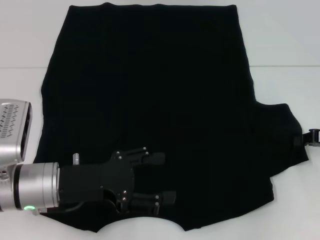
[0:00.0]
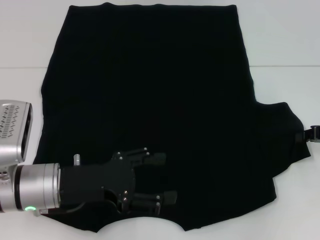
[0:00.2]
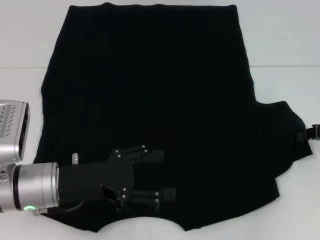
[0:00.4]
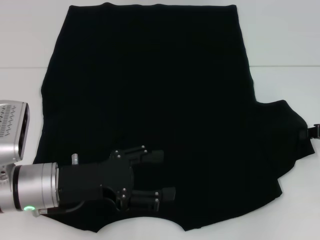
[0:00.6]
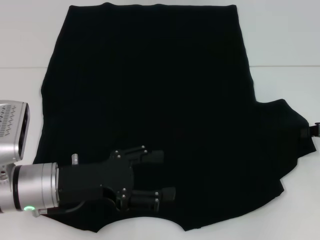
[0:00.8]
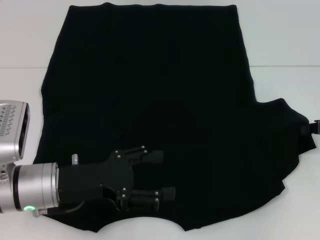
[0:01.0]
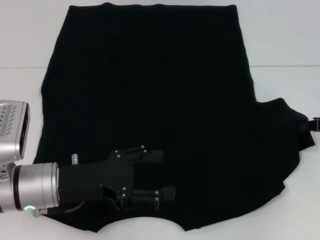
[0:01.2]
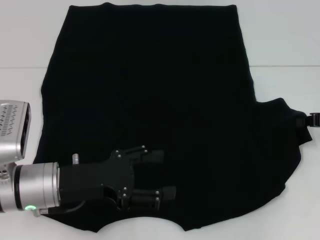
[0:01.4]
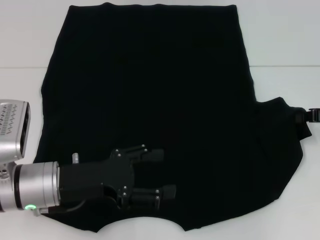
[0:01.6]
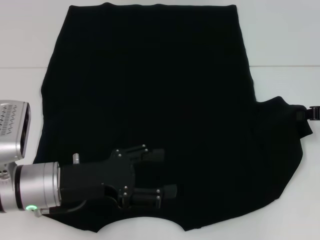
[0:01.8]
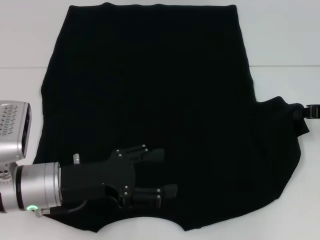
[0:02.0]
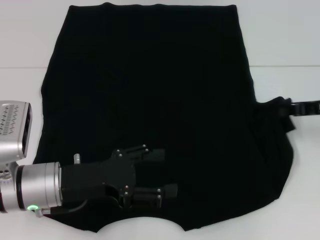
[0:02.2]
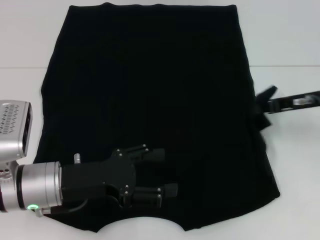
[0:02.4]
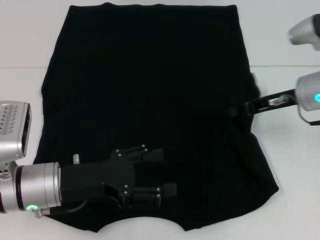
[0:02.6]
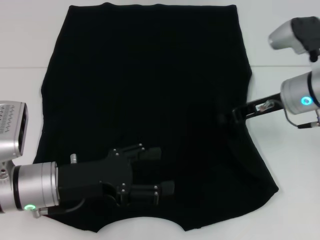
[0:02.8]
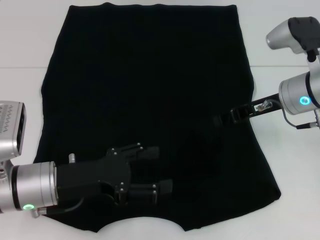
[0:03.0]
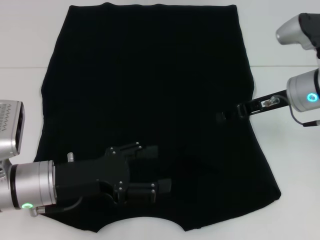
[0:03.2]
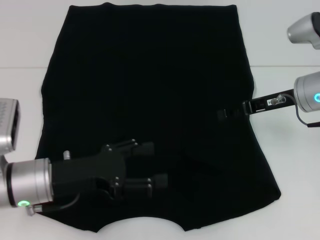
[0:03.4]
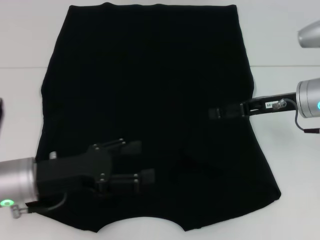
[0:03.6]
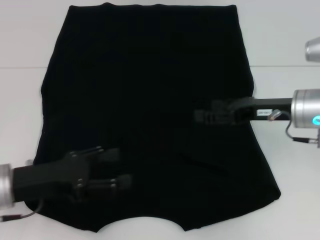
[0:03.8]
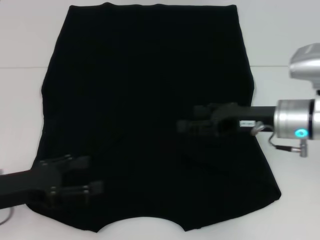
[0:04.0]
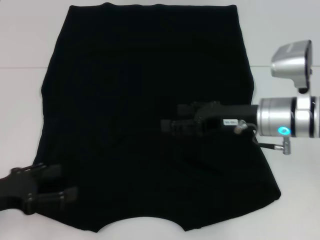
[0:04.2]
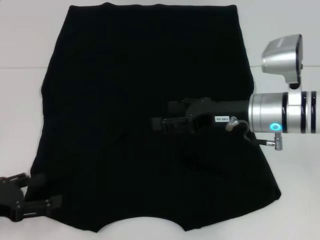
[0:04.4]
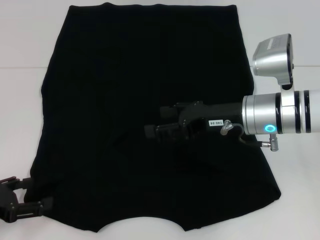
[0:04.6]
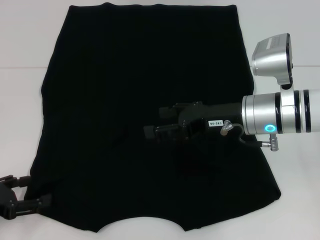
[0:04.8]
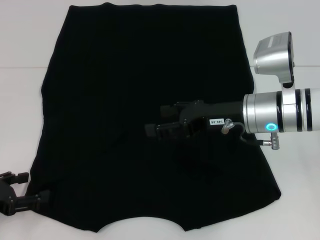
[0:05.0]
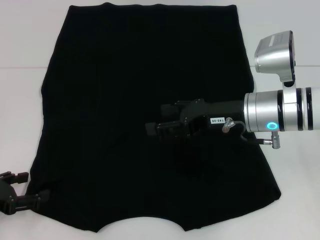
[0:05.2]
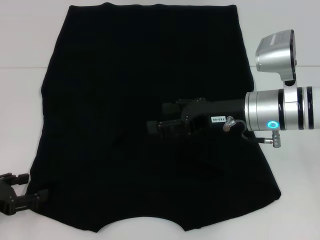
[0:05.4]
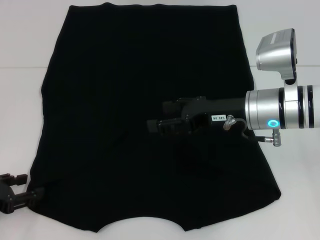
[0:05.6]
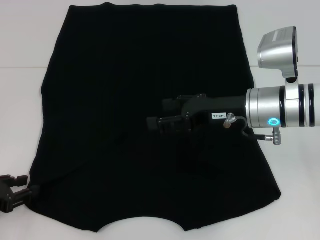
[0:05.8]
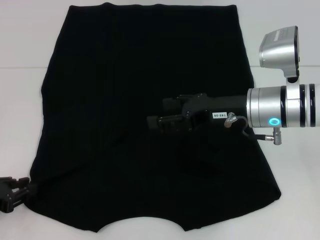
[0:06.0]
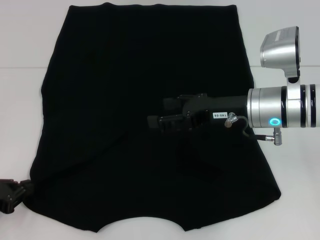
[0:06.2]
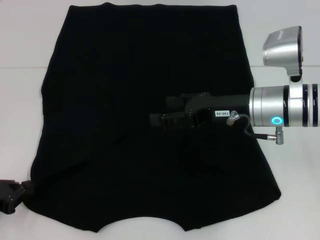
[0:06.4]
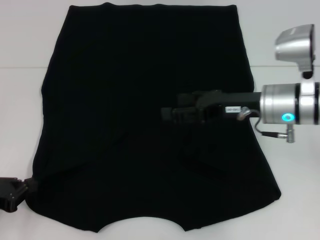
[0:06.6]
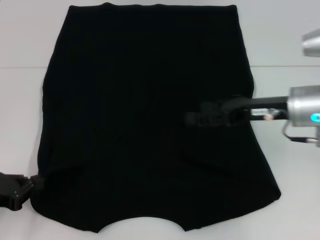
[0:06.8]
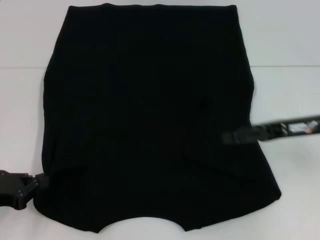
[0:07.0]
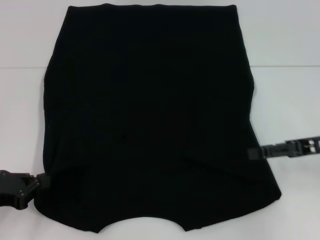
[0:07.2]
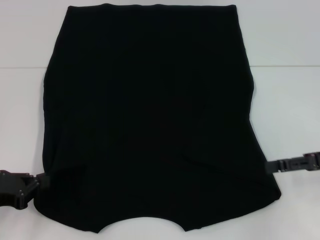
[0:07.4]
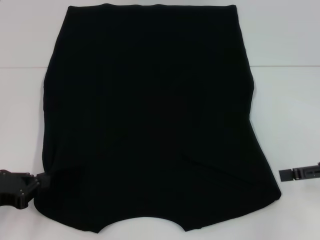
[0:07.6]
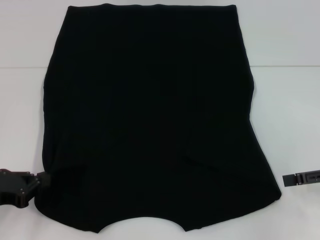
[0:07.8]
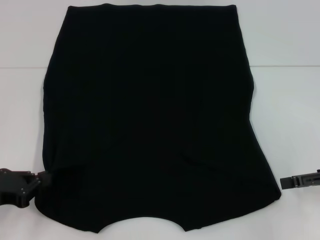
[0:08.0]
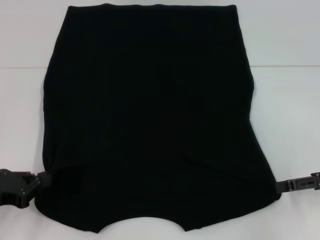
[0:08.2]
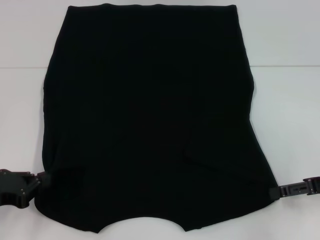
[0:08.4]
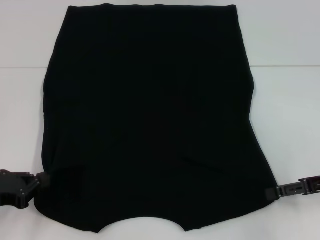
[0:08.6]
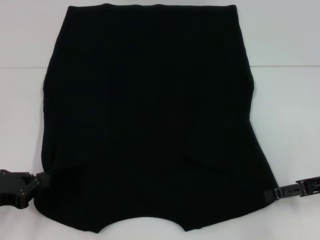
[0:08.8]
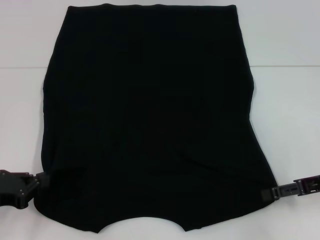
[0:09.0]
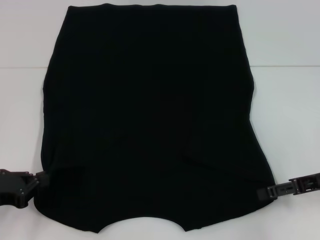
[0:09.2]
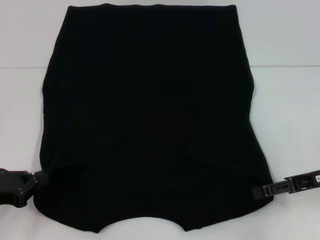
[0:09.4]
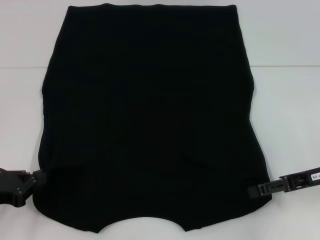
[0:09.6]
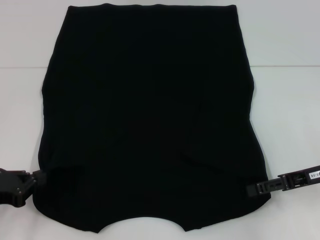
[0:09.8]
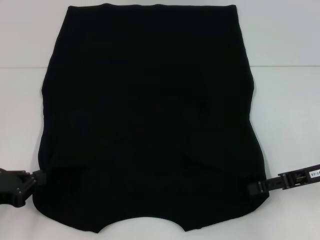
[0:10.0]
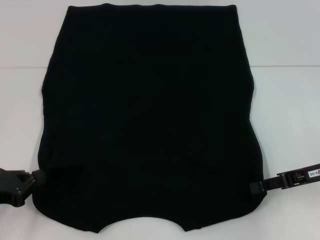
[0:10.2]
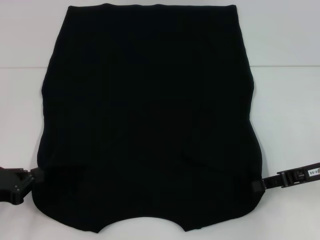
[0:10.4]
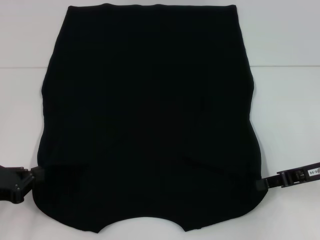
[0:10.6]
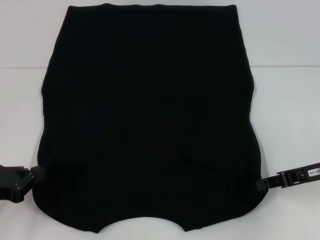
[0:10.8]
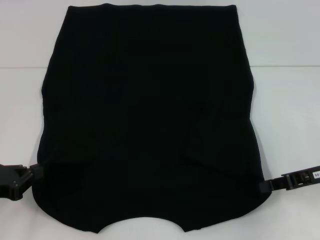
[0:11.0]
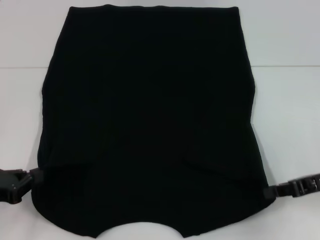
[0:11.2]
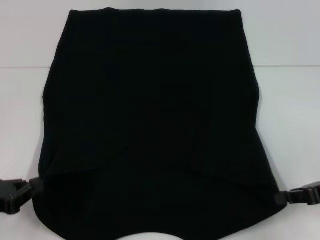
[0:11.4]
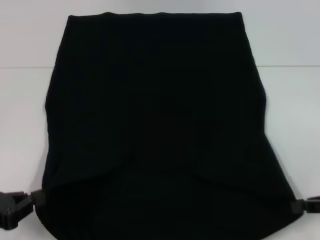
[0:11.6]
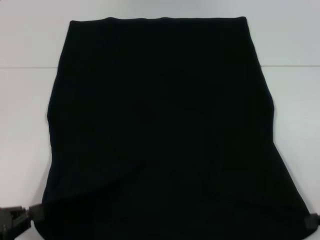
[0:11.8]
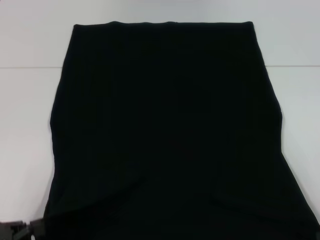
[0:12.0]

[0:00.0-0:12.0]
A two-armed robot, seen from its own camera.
Step, 0:00.0 to 0:03.6: Fold the bottom right sleeve with your right hand.
Step, 0:03.8 to 0:07.0: Grab the bottom left corner with your left hand.
Step, 0:07.2 to 0:10.2: Grab the bottom right corner with your right hand.
0:00.0 to 0:01.6: The grippers stay close to where they were, moving slightly.
0:01.6 to 0:03.0: The right gripper travels to the left by about 15 cm.
0:03.0 to 0:04.4: The right gripper shifts by approximately 5 cm, and opens its fingers. Meanwhile the left gripper shifts approximately 15 cm to the left.
0:04.4 to 0:06.0: The left gripper closes its fingers.
0:06.0 to 0:07.6: The right gripper moves to the right, about 20 cm, while the left gripper closes up.
0:07.6 to 0:09.0: The grippers move only a little.
0:09.0 to 0:10.4: The right gripper closes up.
0:10.4 to 0:12.0: The right gripper shifts about 15 cm backward and to the right, and closes its fingers. Meanwhile the left gripper heads backward, covering approximately 5 cm.

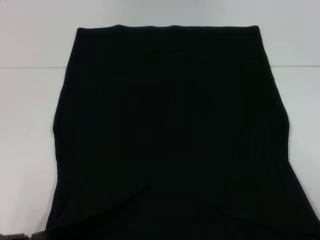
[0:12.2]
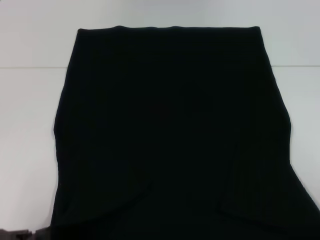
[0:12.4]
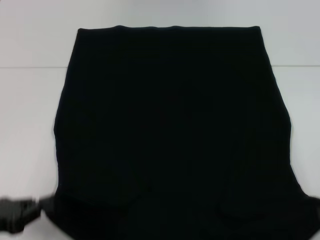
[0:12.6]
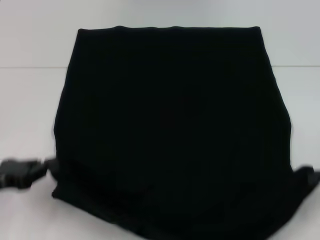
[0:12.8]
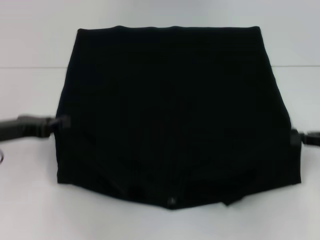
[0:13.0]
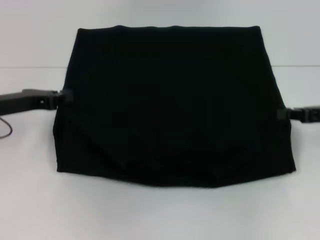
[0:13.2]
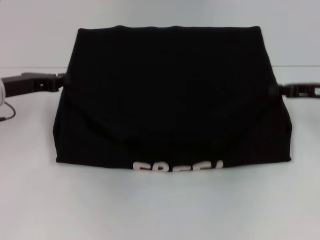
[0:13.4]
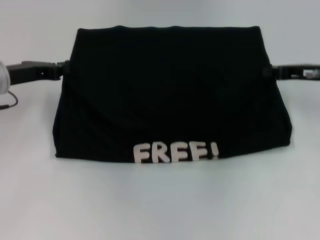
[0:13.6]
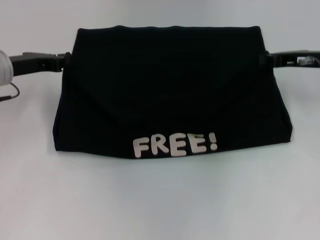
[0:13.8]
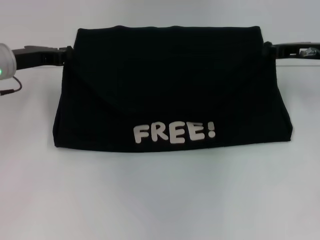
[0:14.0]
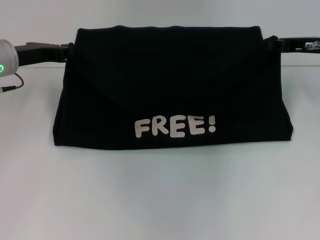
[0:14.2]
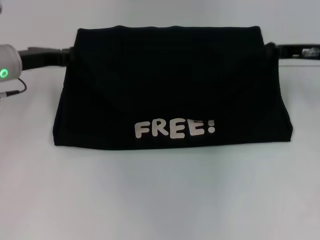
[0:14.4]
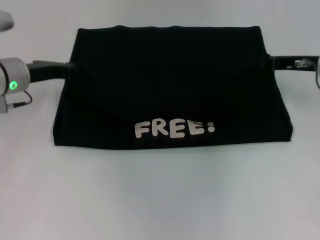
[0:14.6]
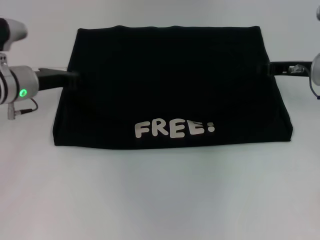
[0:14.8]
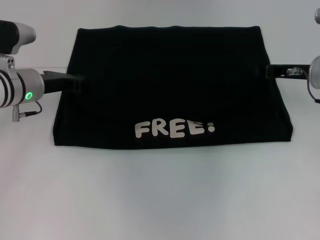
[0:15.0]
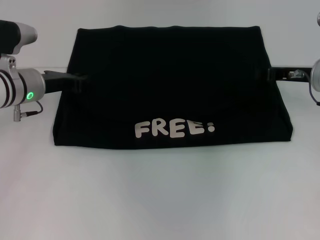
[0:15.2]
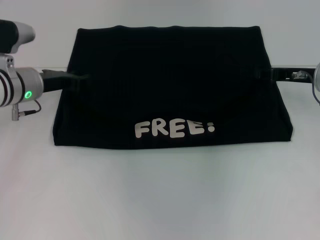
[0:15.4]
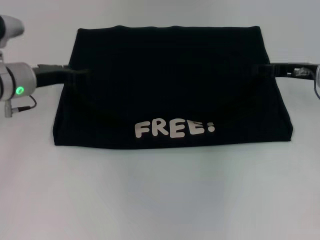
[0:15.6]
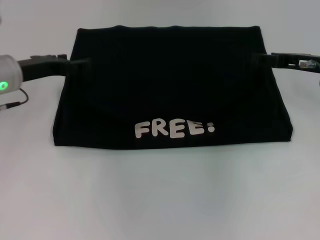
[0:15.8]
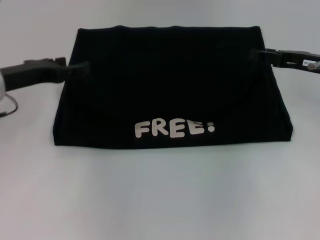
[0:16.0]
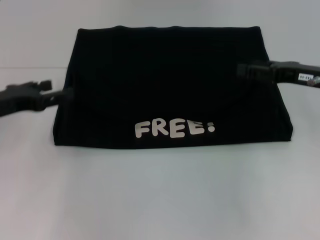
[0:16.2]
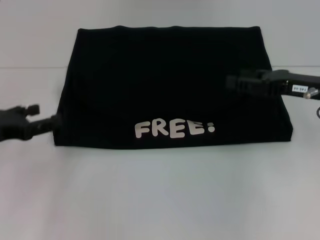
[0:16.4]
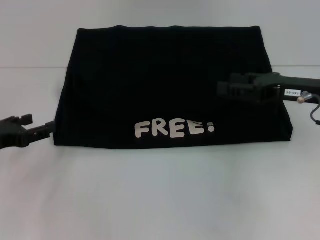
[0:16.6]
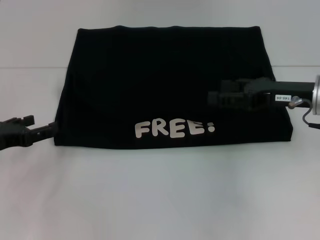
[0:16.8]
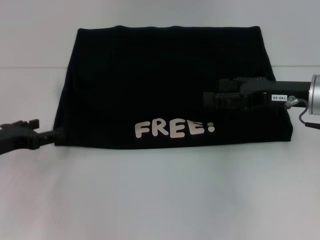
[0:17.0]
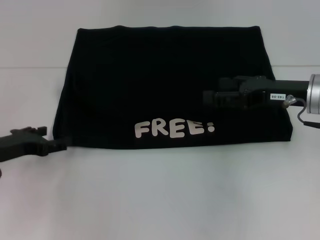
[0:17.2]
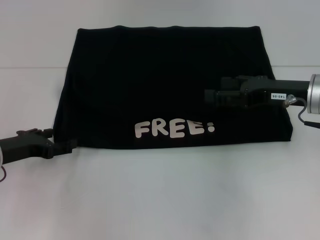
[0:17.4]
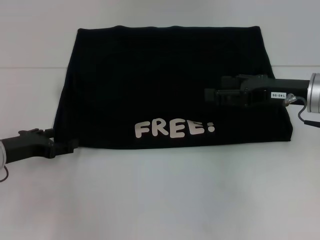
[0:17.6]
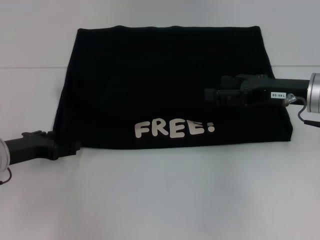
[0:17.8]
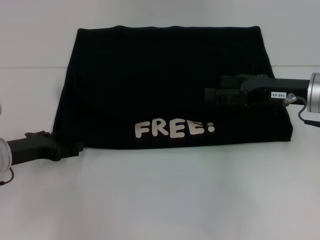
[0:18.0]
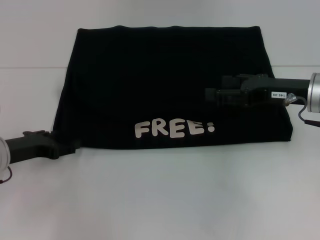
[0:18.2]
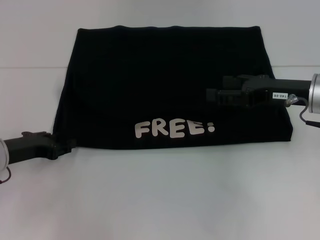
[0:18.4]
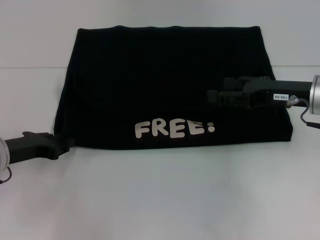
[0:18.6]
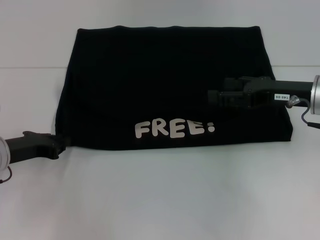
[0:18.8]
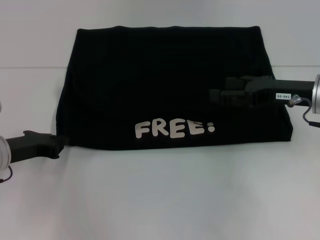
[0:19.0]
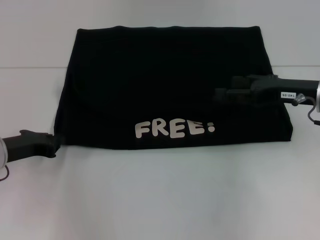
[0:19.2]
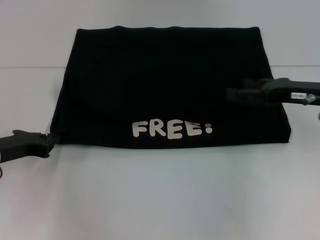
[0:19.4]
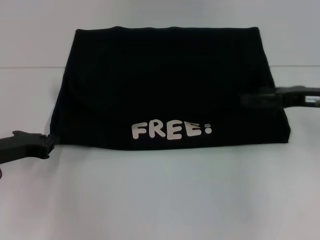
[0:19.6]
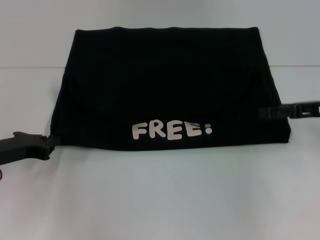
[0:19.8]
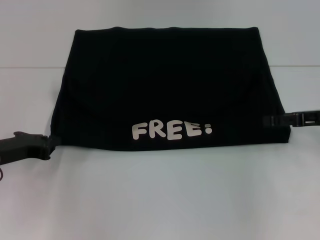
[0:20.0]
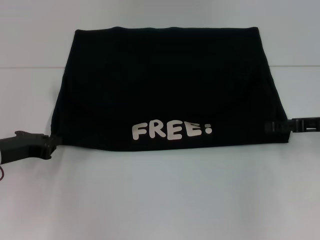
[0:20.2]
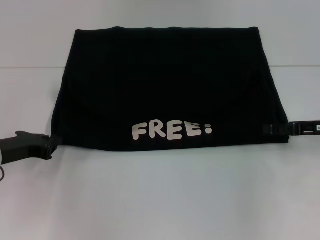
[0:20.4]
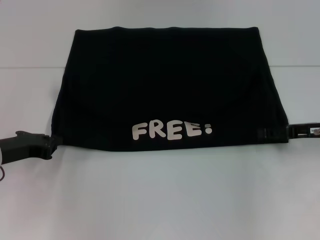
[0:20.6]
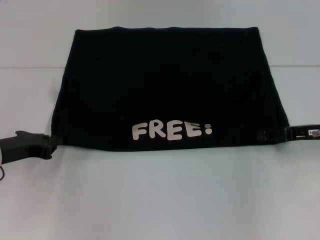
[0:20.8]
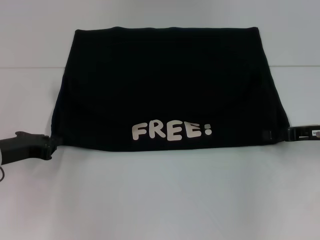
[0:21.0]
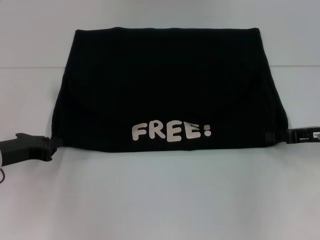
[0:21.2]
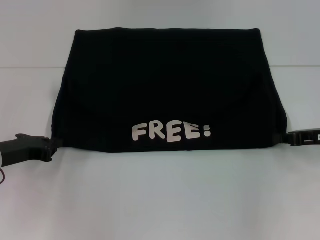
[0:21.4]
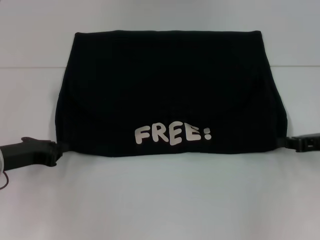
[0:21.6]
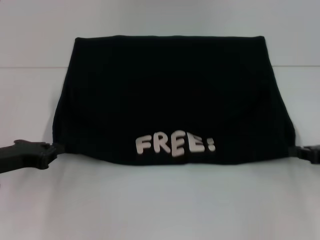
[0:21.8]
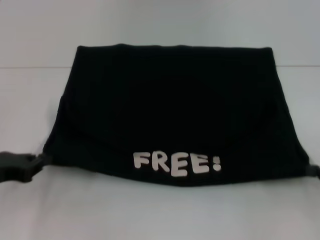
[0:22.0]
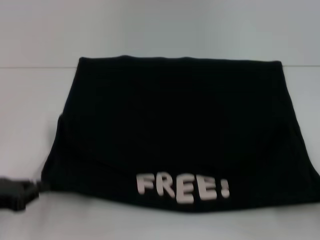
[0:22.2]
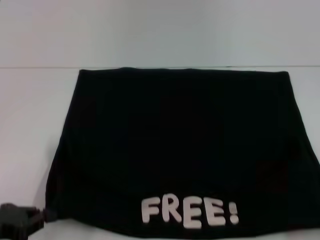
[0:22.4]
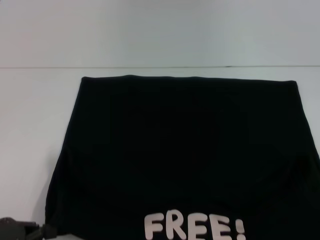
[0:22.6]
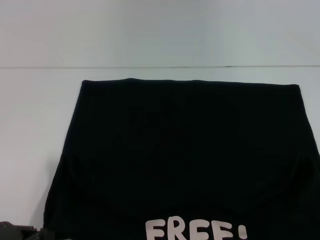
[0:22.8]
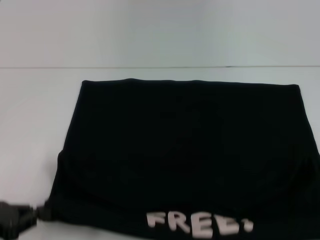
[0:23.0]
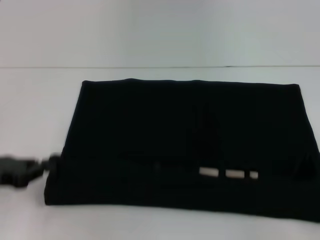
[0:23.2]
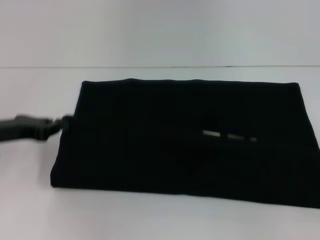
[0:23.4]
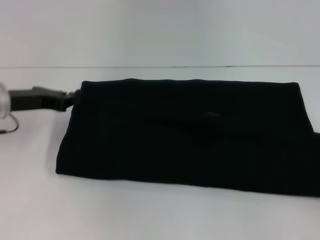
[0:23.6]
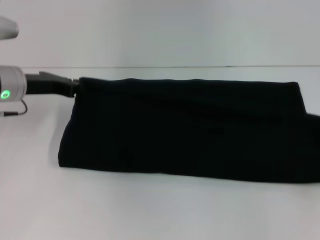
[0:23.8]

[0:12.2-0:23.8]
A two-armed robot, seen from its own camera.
Step, 0:12.2 to 0:15.6: Fold the clothes with your left hand.
Step, 0:12.2 to 0:15.6: Fold the clothes with your right hand.
Step, 0:15.8 to 0:22.6: Pull the clothes with your left hand.
Step, 0:15.8 to 0:22.6: Pull the clothes with your right hand.
0:12.2 to 0:13.6: The left gripper is displaced forward by some 25 cm. Meanwhile the right gripper goes some 25 cm forward and to the left.
0:13.6 to 0:15.0: The left gripper ends up about 5 cm from where it was.
0:15.0 to 0:16.6: The left gripper moves backward and to the left, roughly 15 cm, and opens its fingers. Meanwhile the right gripper is displaced backward by approximately 5 cm, and opens.
0:16.6 to 0:18.0: The left gripper ends up some 5 cm from where it was.
0:18.0 to 0:19.4: The left gripper closes up.
0:19.4 to 0:21.0: The right gripper is displaced downward by roughly 5 cm, and closes up.
0:21.0 to 0:22.4: The left gripper moves backward, approximately 10 cm; the right gripper shifts some 20 cm backward and to the right, and closes.
0:22.4 to 0:23.8: Both grippers move forward, roughly 20 cm.
